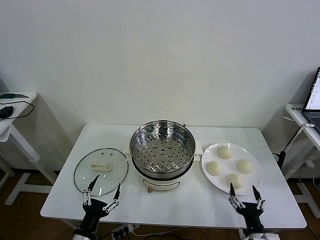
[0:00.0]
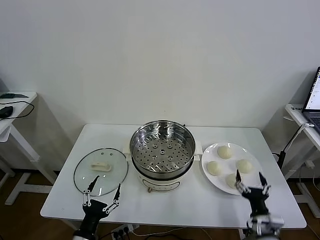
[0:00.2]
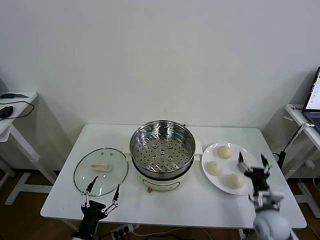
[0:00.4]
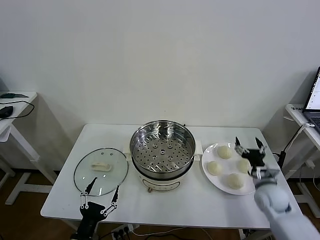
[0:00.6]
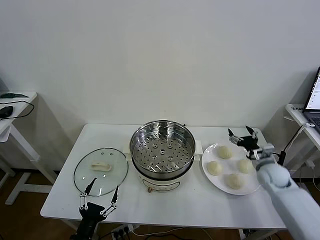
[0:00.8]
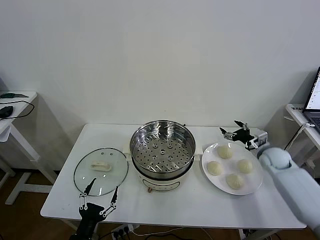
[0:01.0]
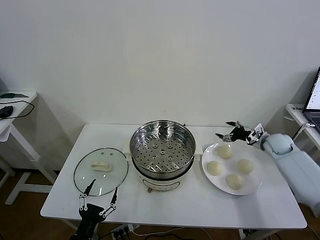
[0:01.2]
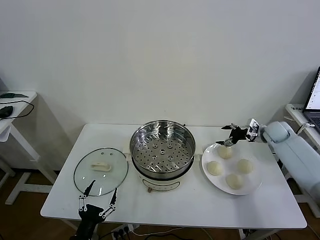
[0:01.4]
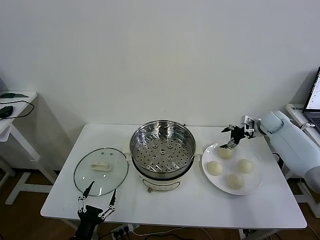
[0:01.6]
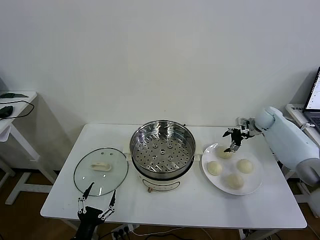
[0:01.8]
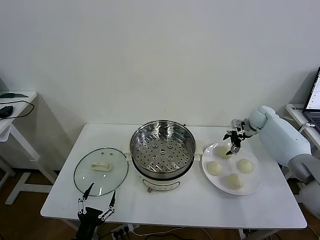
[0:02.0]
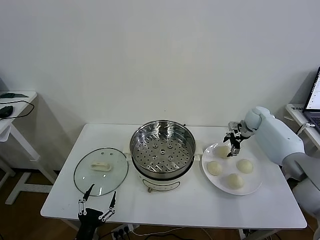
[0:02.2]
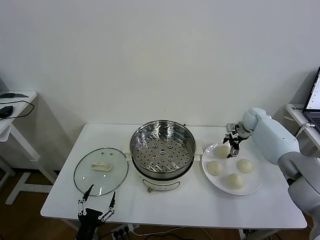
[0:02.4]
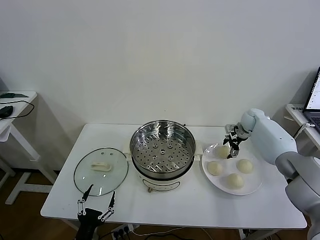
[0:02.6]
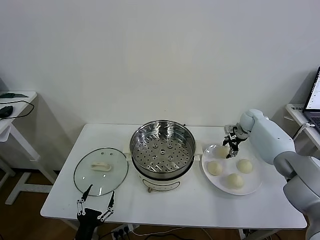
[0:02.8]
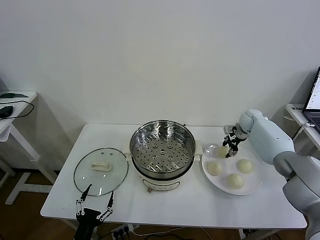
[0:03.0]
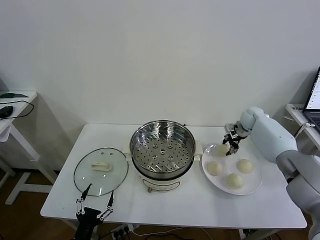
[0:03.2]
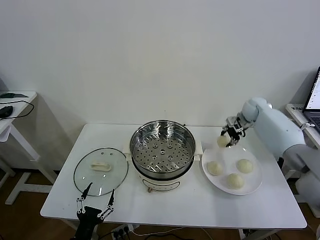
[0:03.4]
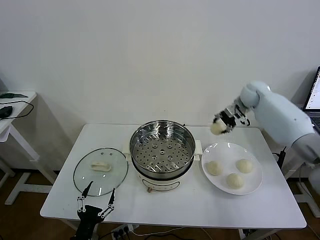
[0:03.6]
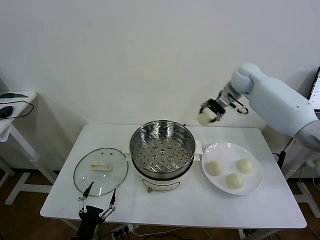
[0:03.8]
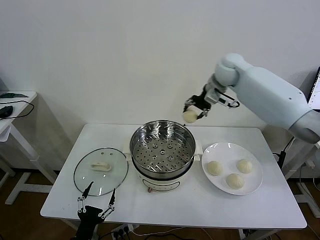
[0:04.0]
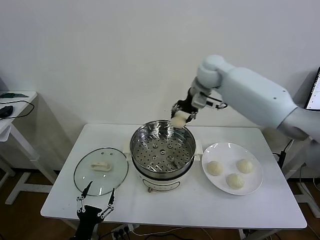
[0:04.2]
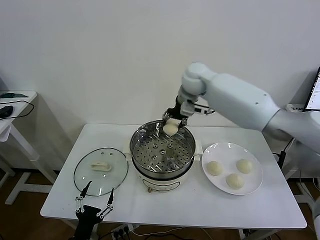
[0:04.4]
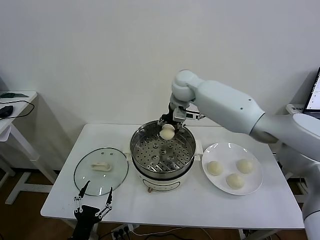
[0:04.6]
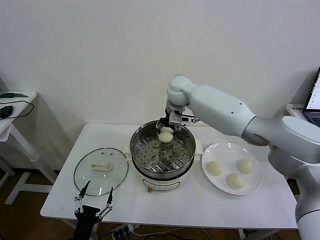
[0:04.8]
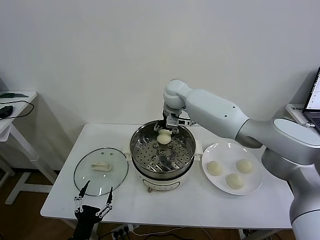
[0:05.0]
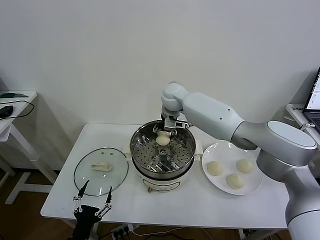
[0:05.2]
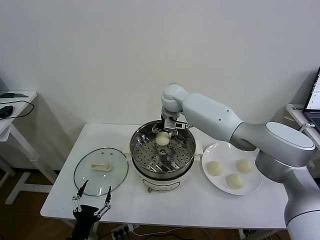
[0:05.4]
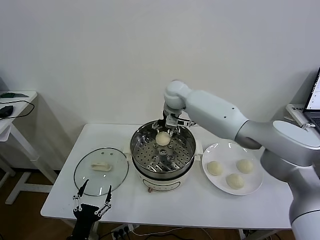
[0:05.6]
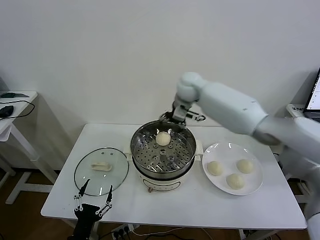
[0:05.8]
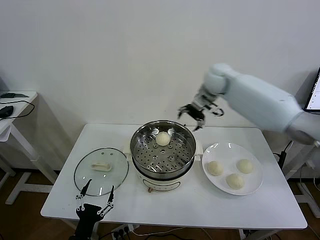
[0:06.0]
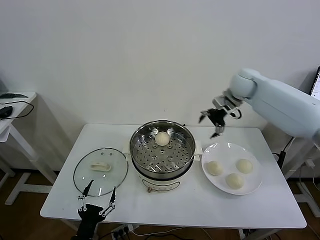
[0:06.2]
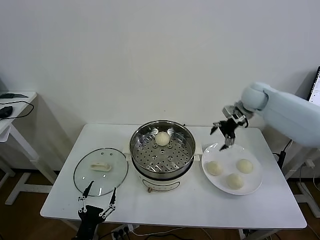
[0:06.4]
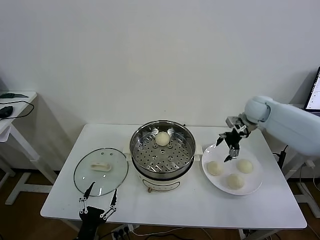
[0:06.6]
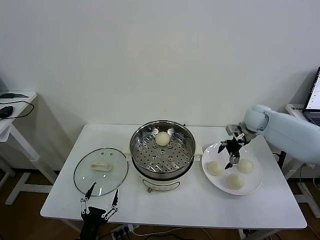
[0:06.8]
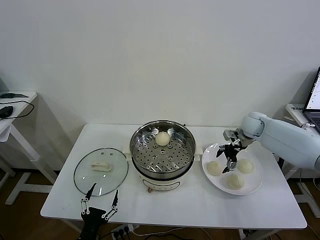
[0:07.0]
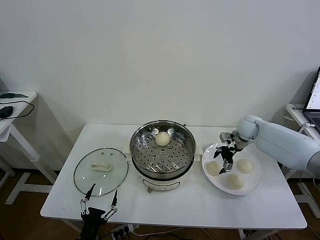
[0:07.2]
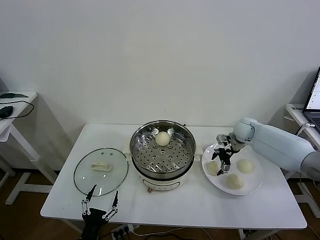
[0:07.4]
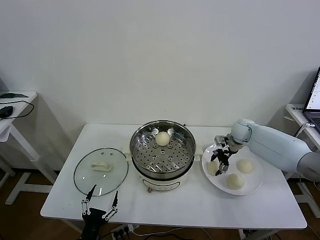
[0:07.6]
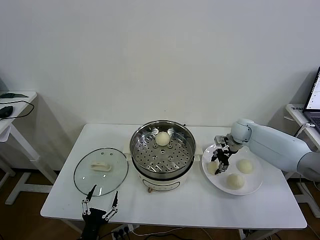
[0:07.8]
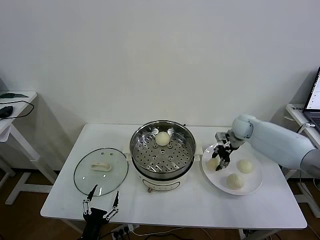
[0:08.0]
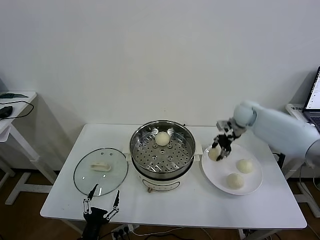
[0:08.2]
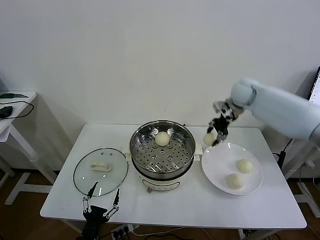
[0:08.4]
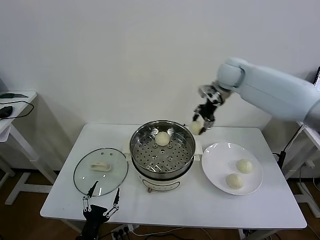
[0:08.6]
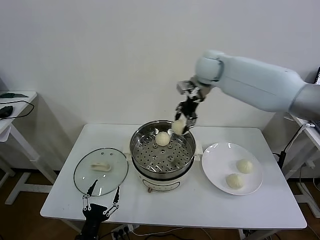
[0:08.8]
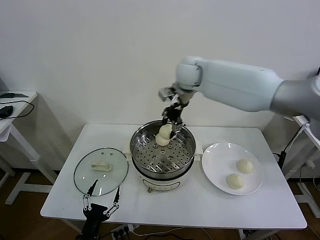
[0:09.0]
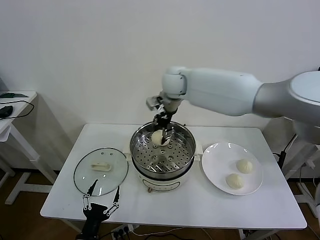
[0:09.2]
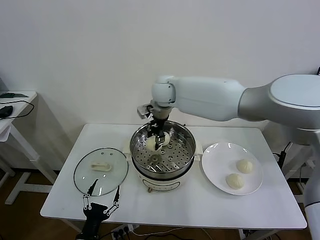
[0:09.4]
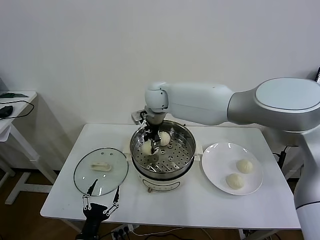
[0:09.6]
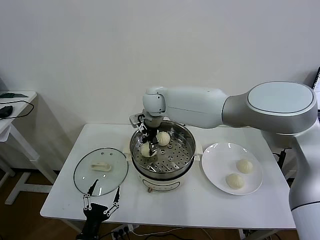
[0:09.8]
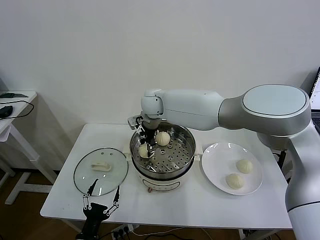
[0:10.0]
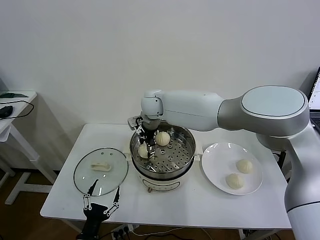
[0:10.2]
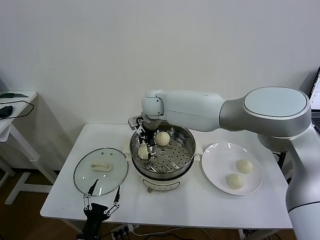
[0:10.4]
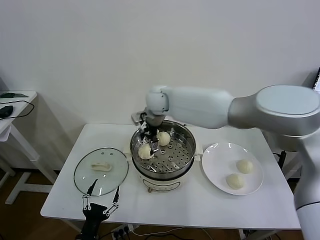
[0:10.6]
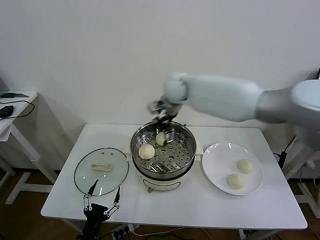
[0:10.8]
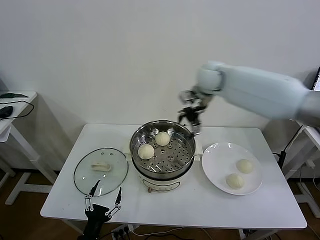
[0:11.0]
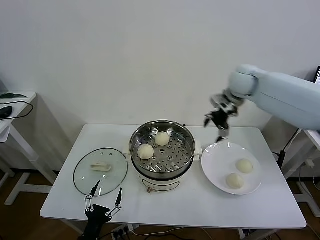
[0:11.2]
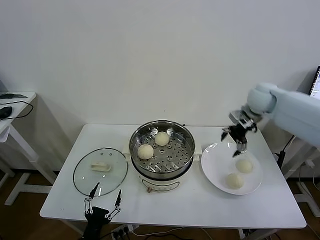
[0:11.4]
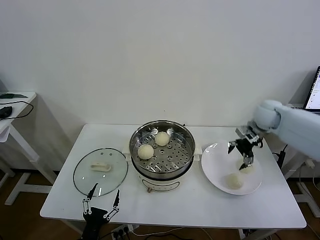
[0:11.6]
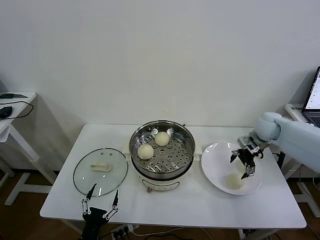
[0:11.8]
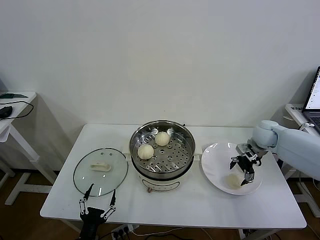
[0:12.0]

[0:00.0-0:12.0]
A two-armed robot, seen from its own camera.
Task of the whole recording: take steamed baozi put them in steamer then cover it.
Step, 0:00.0 to 0:02.8: Grasp the baozi in the plate with right gripper.
Step, 0:03.0 to 0:05.4: Place the baozi on the steamer with right gripper.
Step, 0:05.6 to 0:07.8: Grasp the baozi in the plate with right gripper.
Step, 0:08.0 to 0:10.4: Place the baozi on the steamer with right gripper.
0:01.6 to 0:03.0: The right gripper goes approximately 5 cm to the left, and closes up.
0:03.0 to 0:04.4: The right gripper shifts roughly 35 cm to the left and upward.
0:04.4 to 0:06.0: The right gripper travels to the right by approximately 15 cm, and opens its fingers.
0:06.0 to 0:07.6: The right gripper travels downward and to the right by approximately 25 cm, and closes.
0:07.6 to 0:09.0: The right gripper travels to the left and upward by about 35 cm, and closes up.
0:09.0 to 0:10.4: The right gripper moves downward and to the left, some 15 cm, and opens its fingers.
0:10.4 to 0:12.0: The right gripper shifts roughly 40 cm to the right.

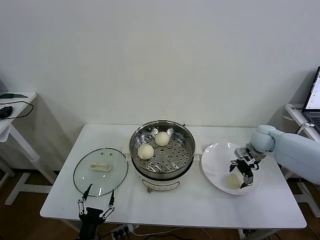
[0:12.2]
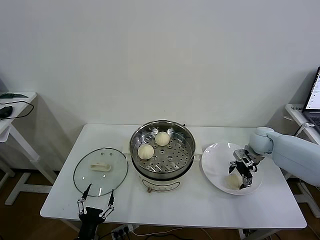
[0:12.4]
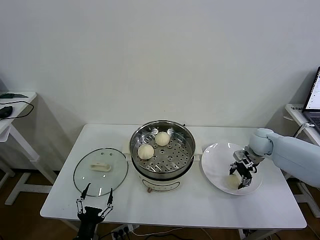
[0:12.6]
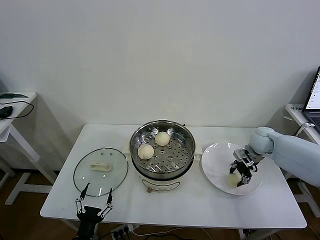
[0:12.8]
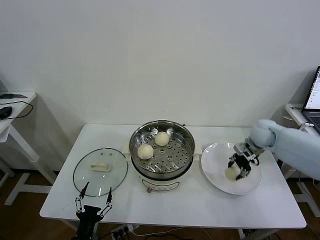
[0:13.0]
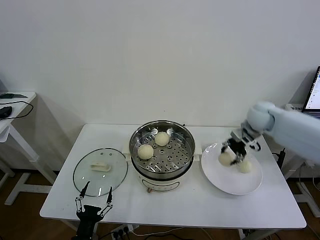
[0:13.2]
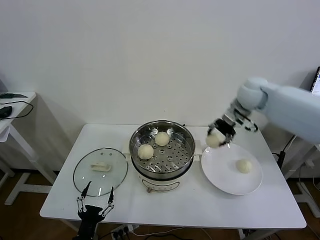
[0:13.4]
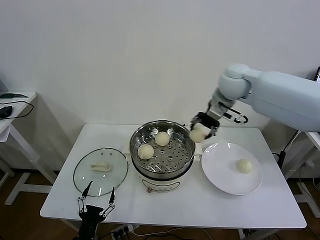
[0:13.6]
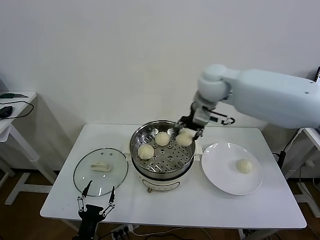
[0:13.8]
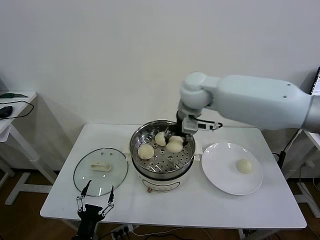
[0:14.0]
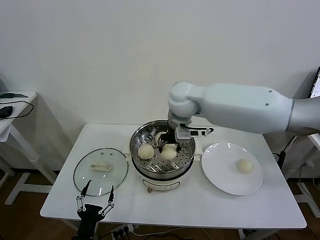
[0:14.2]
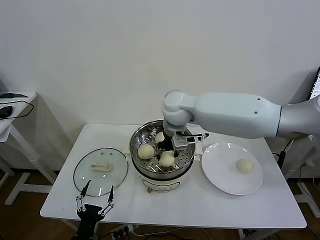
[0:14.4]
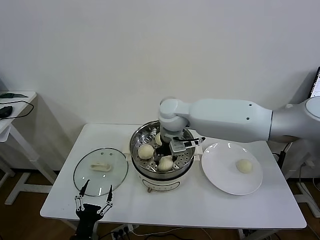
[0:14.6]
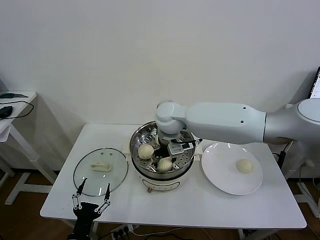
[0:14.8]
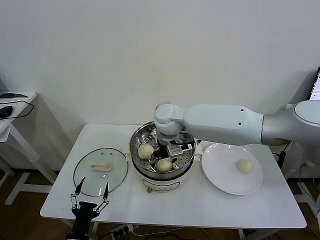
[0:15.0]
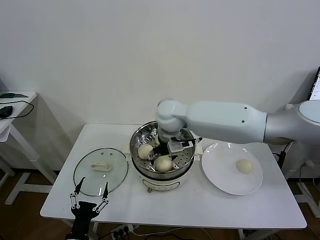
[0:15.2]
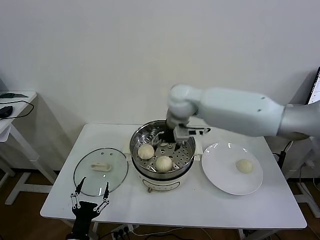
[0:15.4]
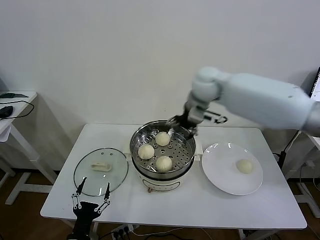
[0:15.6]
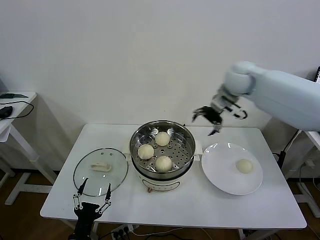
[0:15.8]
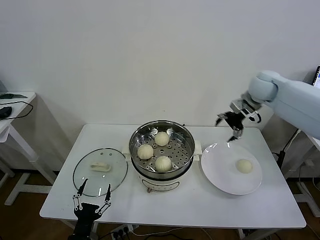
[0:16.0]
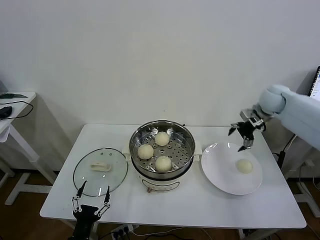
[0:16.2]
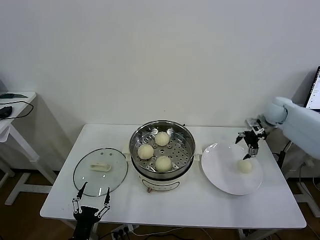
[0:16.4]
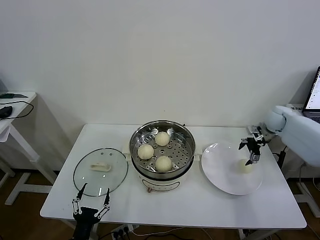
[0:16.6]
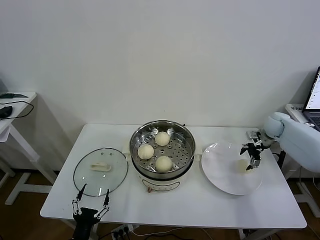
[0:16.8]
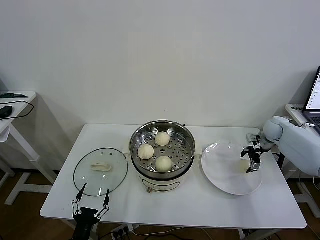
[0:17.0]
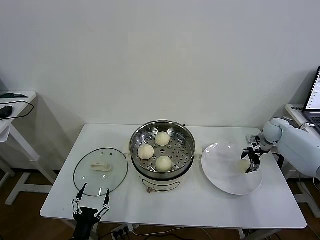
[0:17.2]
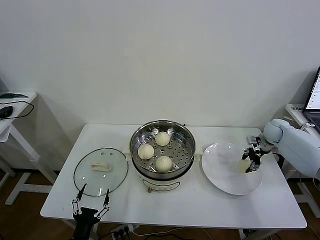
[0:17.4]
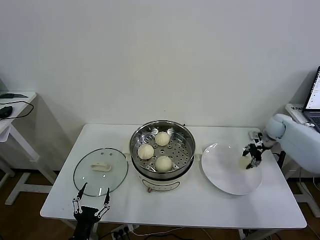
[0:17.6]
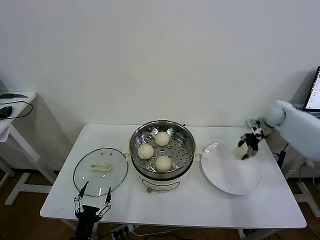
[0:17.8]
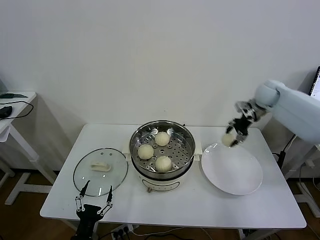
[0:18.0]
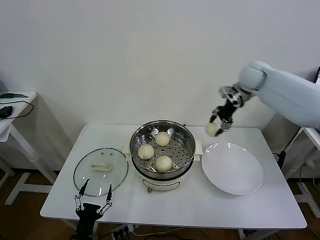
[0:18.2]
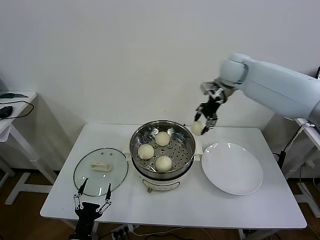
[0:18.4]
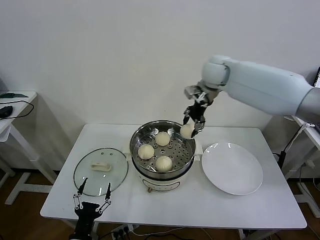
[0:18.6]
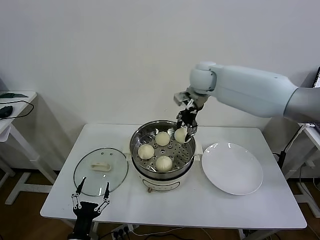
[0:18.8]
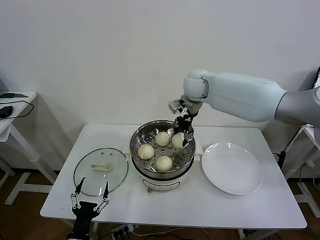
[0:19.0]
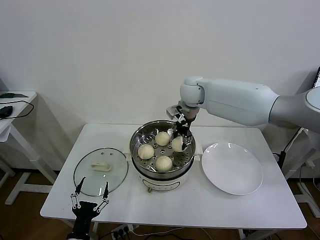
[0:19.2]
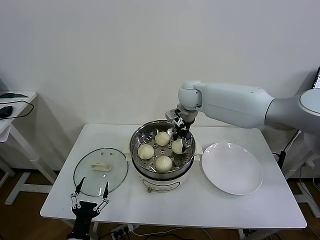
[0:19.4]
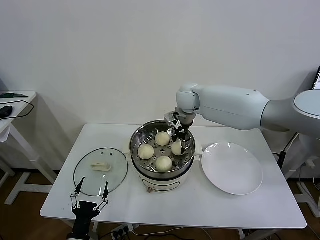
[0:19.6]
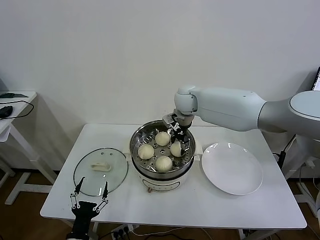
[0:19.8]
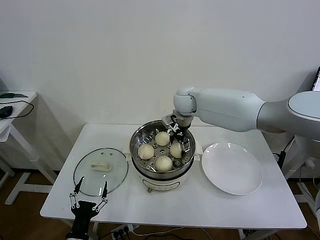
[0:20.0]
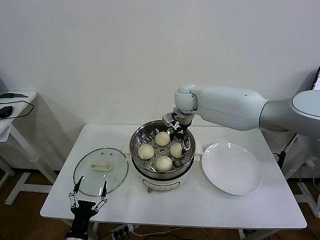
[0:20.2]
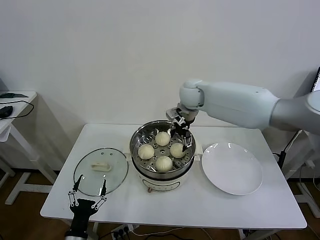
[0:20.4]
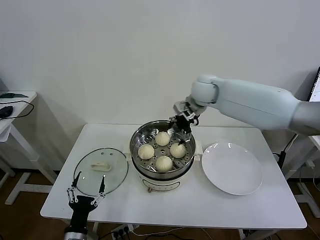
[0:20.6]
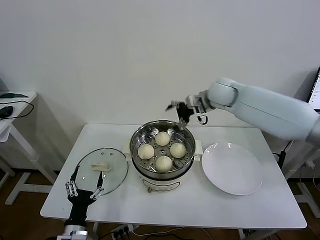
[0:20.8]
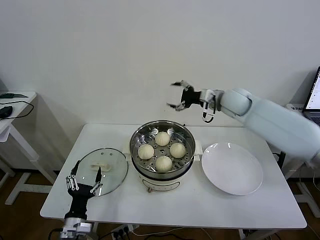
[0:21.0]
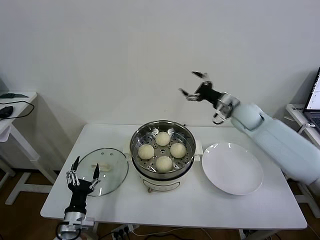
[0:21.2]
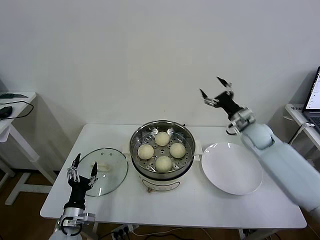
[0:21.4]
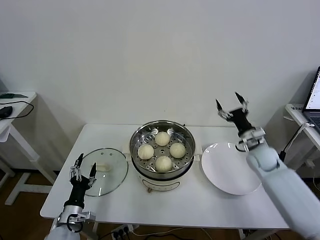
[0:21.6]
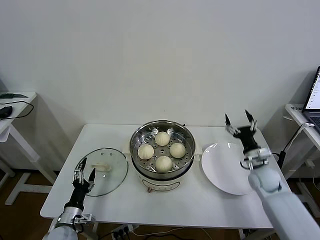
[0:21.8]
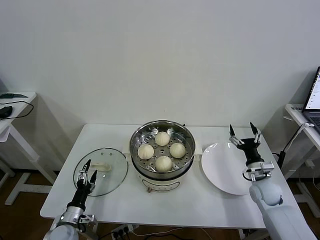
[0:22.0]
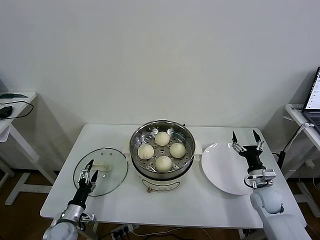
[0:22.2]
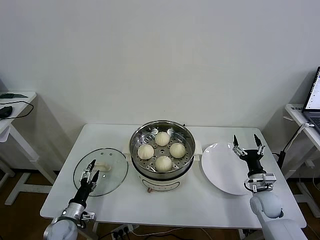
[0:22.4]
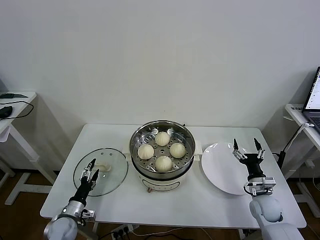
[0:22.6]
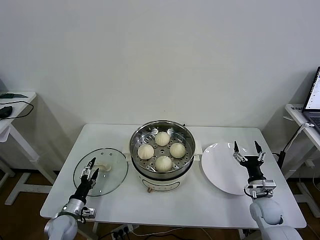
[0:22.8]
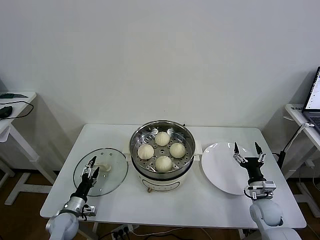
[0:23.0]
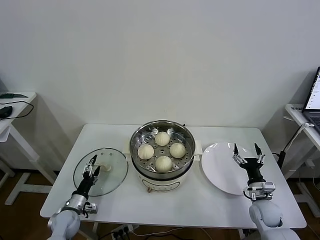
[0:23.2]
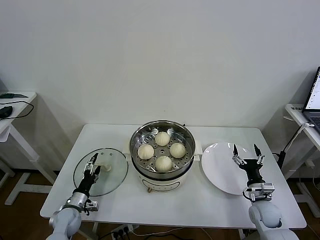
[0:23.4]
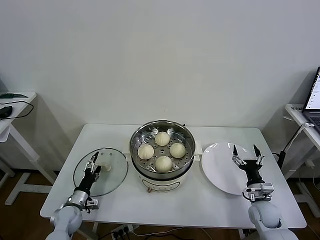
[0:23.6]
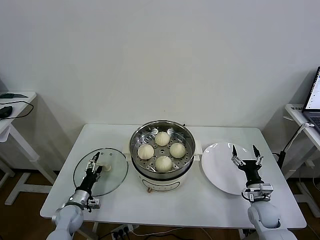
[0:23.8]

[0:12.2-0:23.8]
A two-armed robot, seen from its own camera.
Task of the whole recording: take steamed baozi put them in steamer then cover it.
Step, 0:12.8 to 0:15.0: Place the baozi on the steamer with right gripper.
Step, 0:15.4 to 0:17.4: Grasp the baozi in the plate with right gripper.
Step, 0:17.6 to 0:20.2: Place the baozi on the steamer with right gripper.
0:12.2 to 0:13.6: The right gripper goes some 30 cm upward and to the left, and closes.
0:13.6 to 0:15.0: The right gripper is displaced to the left and downward by some 20 cm, and opens its fingers.
0:15.0 to 0:16.6: The right gripper moves to the right, some 40 cm.
0:16.6 to 0:18.0: The right gripper heads upward and to the left, covering roughly 15 cm, and closes its fingers.
0:18.0 to 0:19.4: The right gripper heads to the left, covering some 25 cm.
0:19.4 to 0:21.0: The right gripper goes about 15 cm to the right, and opens its fingers, while the left gripper heads forward, covering approximately 5 cm.
0:21.0 to 0:22.4: The right gripper travels downward, backward and to the right by about 40 cm. Meanwhile the left gripper shifts about 15 cm forward, downward and to the left.
0:22.4 to 0:23.8: The left gripper moves forward, some 5 cm.
